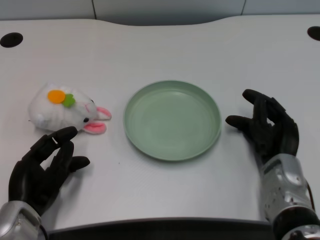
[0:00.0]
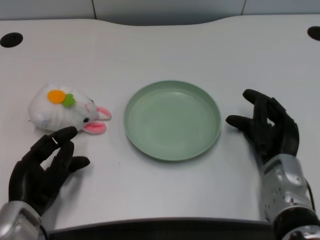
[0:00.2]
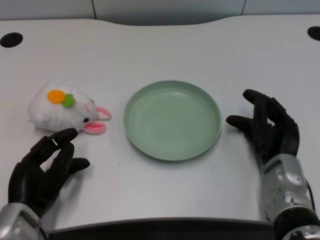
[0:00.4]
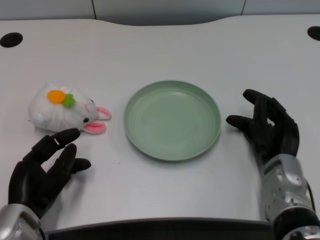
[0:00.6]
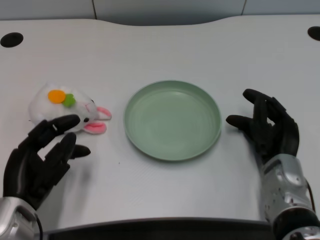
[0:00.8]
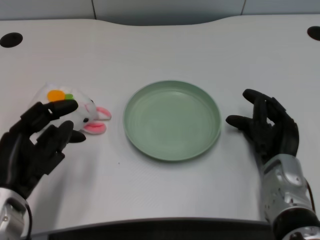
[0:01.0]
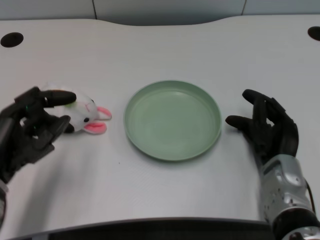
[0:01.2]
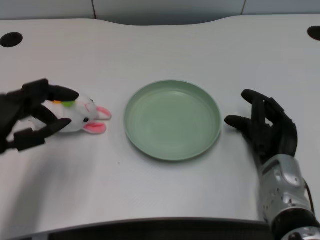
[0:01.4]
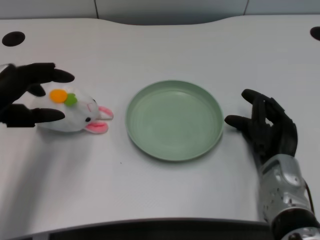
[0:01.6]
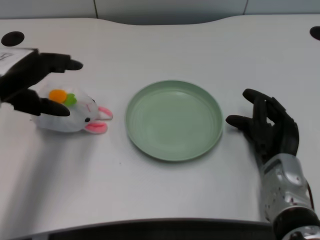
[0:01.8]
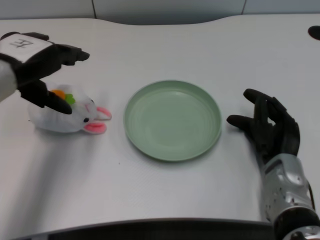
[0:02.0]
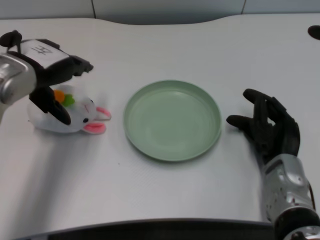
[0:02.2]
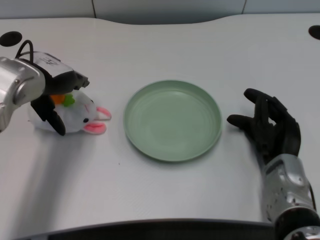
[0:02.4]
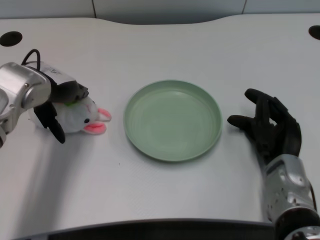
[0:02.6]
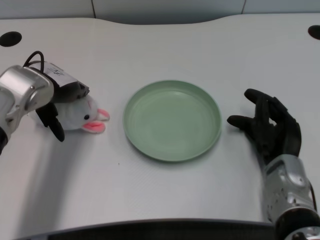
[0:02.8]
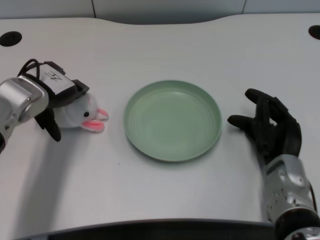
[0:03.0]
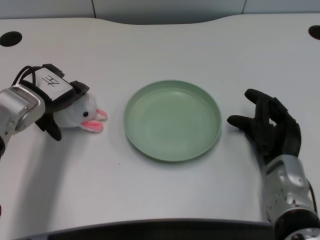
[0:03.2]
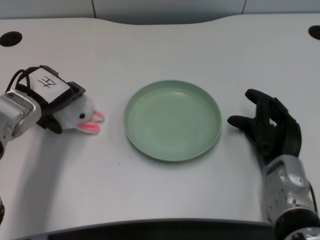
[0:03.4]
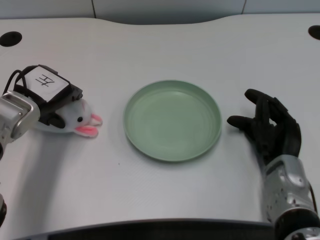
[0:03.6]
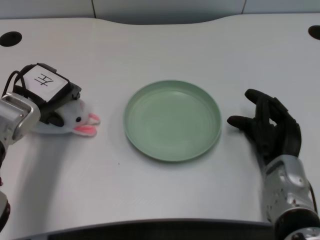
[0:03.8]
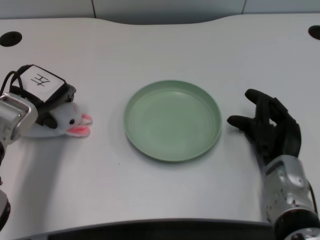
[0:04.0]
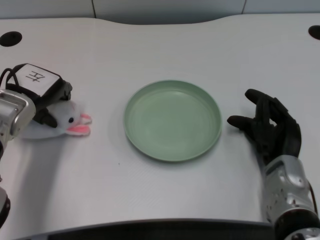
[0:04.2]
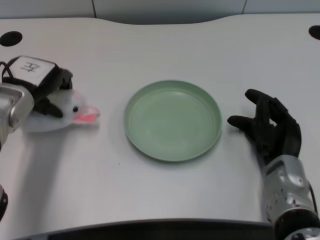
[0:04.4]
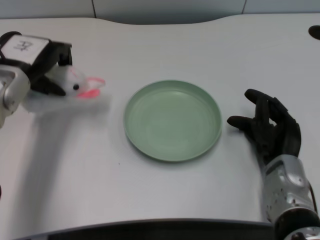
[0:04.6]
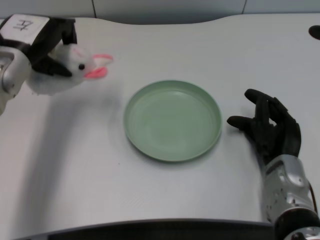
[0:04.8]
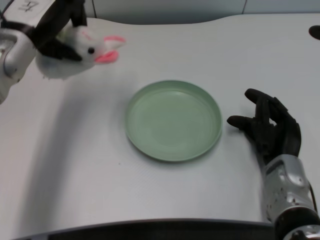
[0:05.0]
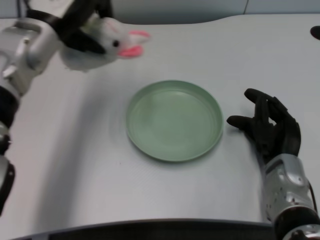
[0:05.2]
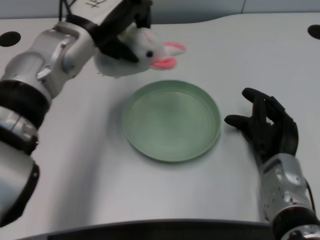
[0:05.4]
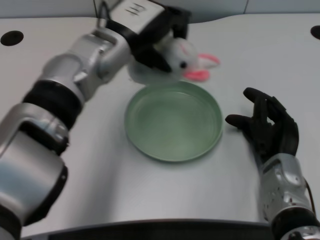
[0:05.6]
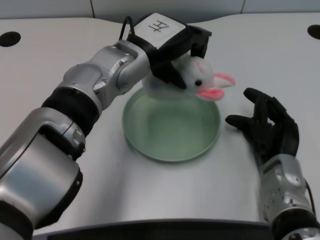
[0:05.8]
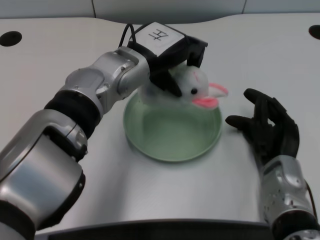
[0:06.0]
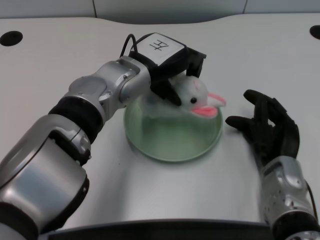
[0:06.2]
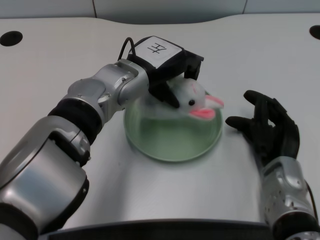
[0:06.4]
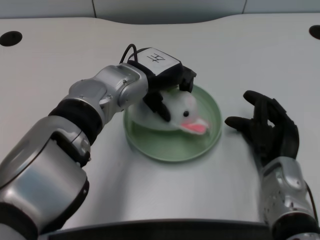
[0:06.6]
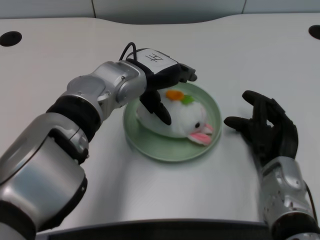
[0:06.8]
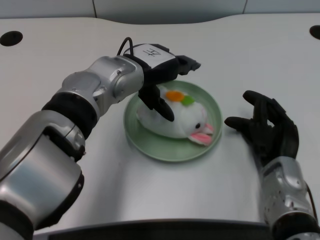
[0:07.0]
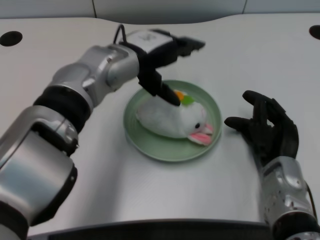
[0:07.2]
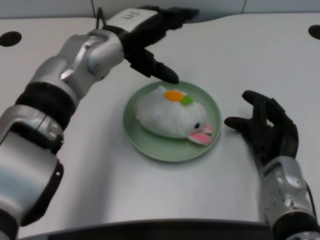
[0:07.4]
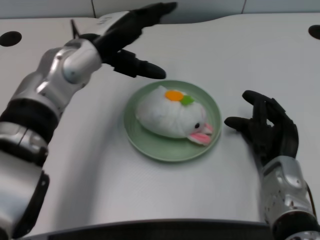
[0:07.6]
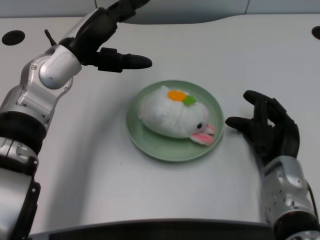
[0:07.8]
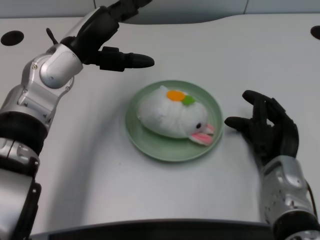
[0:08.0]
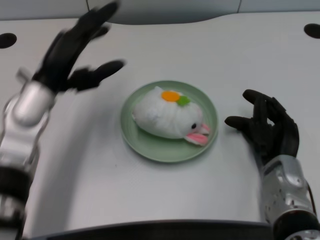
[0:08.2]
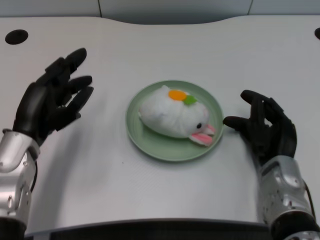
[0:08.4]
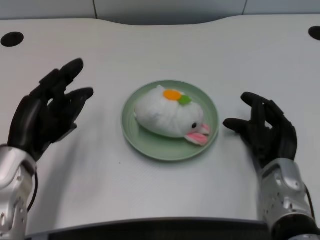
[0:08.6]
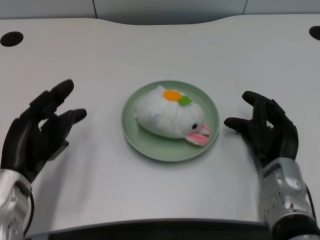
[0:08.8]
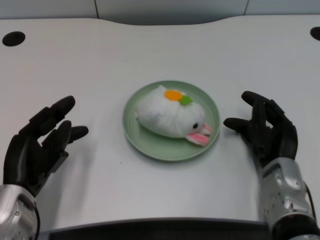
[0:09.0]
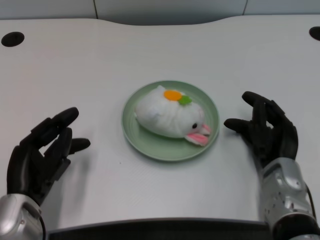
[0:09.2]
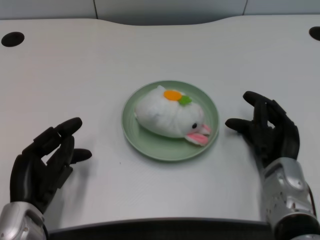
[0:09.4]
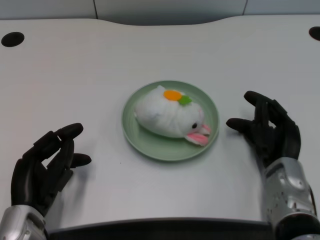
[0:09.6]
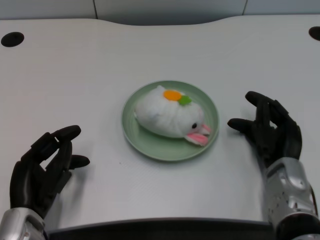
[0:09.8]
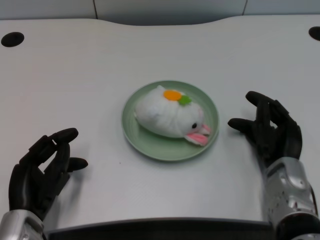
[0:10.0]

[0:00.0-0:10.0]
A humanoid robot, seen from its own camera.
Task of the whole recording: pick up the rabbit doll from the table and place it on the plate.
Step, 0:00.8 to 0:04.4: Grasp the rabbit doll with the left gripper.
Step, 0:04.6 to 0:07.0: Place the rabbit doll into the plate with the left gripper.
0:01.4 to 0:02.8: The left hand travels forward and to the right by about 15 cm.
0:02.8 to 0:04.2: The left hand shifts by about 5 cm.
0:04.2 to 0:05.8: The left hand goes approximately 20 cm to the right and upward.
0:07.2 to 0:08.6: The left hand travels to the left, backward and downward by some 20 cm.
0:08.6 to 0:10.0: The left hand is displaced downward and backward by roughly 10 cm.

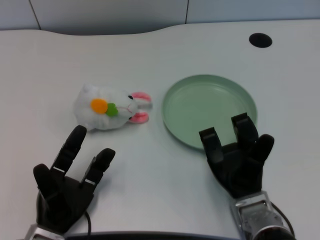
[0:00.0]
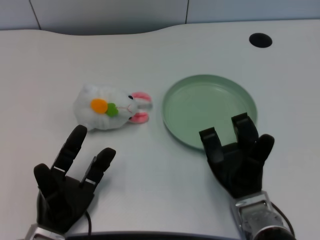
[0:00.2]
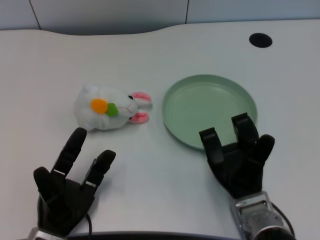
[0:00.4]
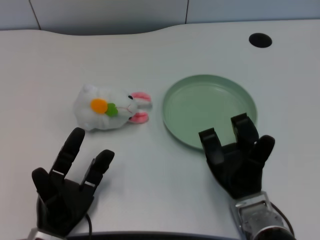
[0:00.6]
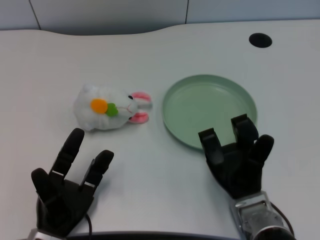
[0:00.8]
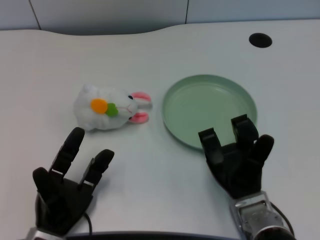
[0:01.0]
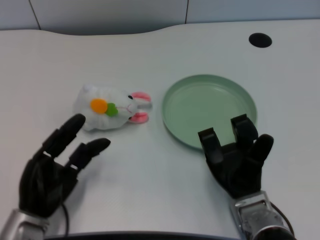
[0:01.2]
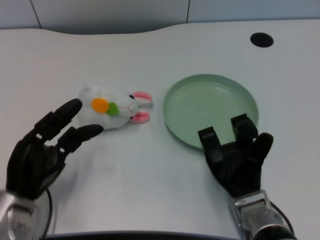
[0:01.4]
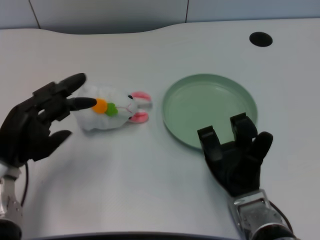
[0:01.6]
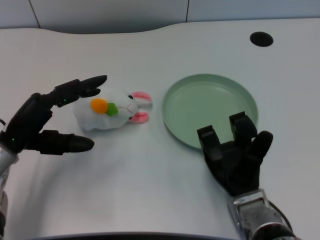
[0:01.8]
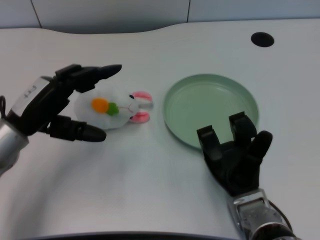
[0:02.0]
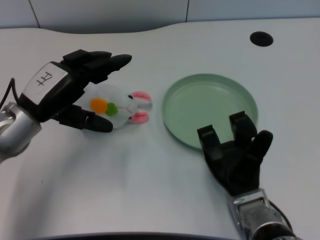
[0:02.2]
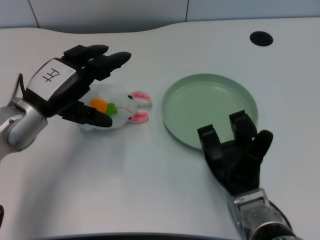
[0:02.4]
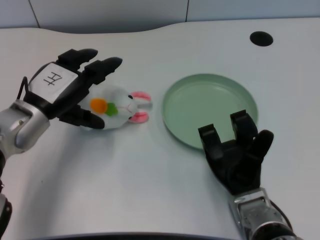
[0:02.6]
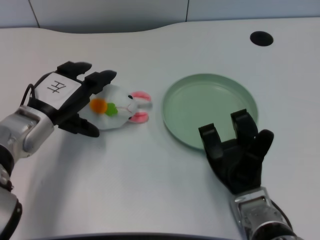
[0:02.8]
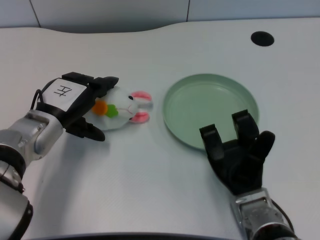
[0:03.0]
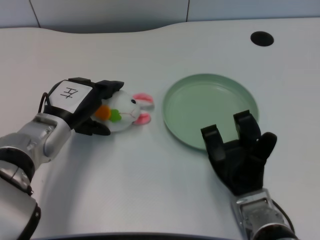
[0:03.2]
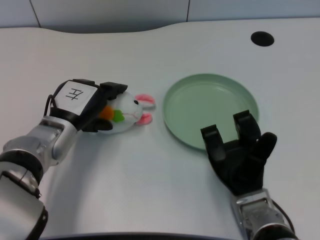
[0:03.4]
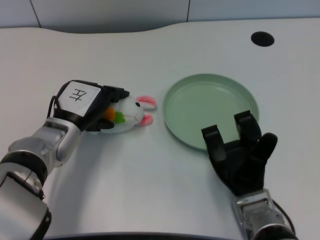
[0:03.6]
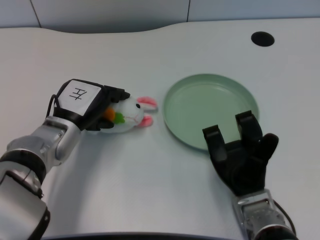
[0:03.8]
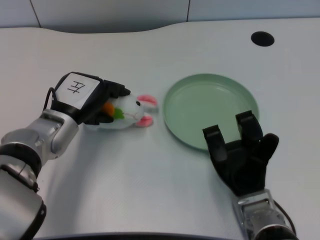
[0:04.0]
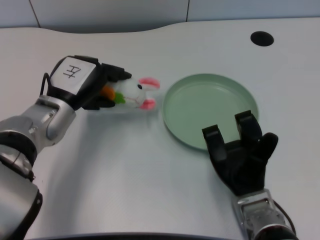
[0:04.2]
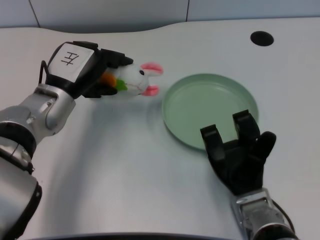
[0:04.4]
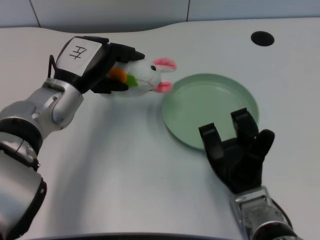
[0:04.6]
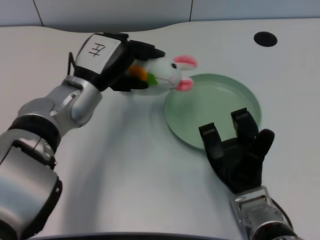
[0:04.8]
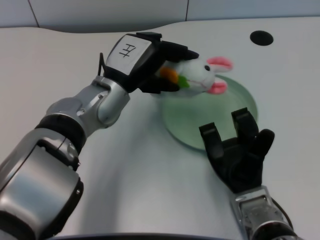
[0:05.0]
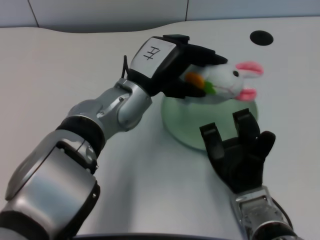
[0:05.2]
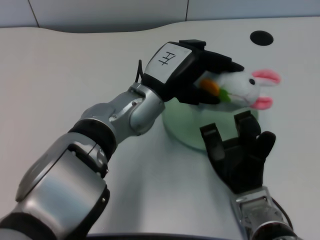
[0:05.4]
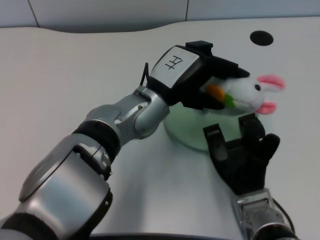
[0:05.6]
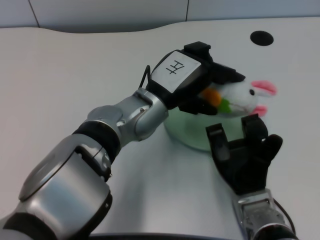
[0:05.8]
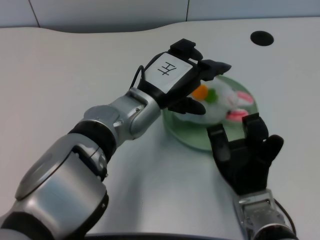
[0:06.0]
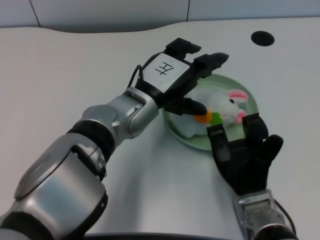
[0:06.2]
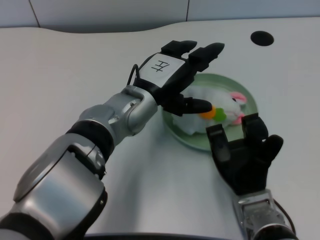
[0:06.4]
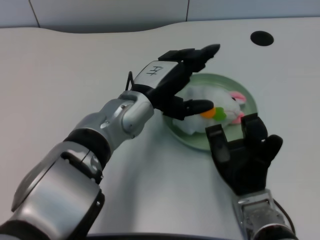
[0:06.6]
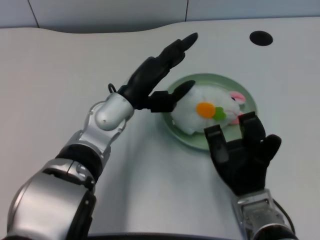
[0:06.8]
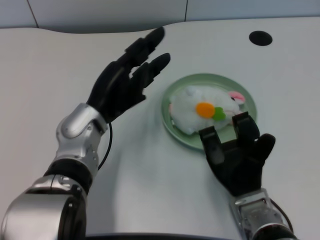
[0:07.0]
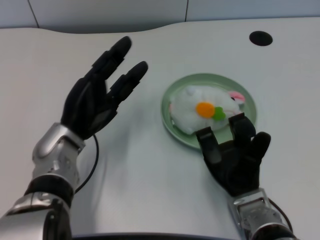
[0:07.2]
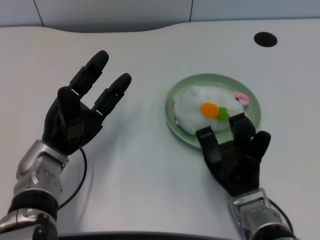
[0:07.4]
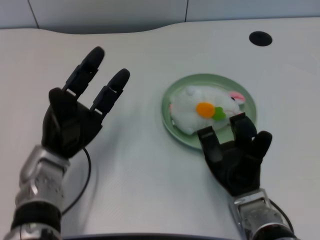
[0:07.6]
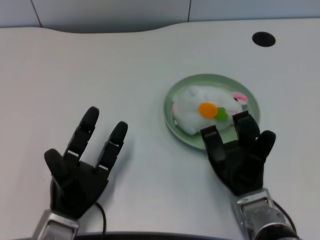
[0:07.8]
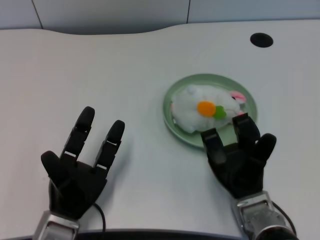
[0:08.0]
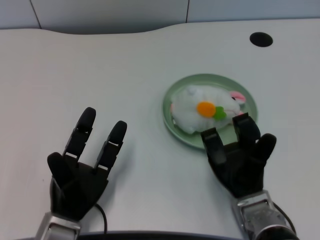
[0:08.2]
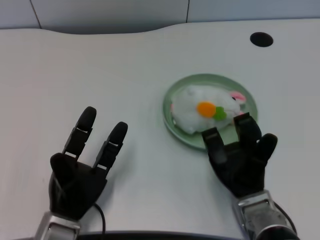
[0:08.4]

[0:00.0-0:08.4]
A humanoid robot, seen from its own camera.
Task of the whole recording: pick up the rabbit doll from the table and place it on the plate.
Step, 0:01.0 to 0:04.0: Grasp the rabbit doll with the left gripper.
Step, 0:04.2 to 0:06.0: Place the rabbit doll into the plate with the left gripper.
0:01.4 to 0:02.8: The left hand travels forward and upward by roughly 10 cm.
0:02.8 to 0:04.2: The hands move only a little.
0:04.2 to 0:05.6: The left hand heads to the right, covering some 15 cm.
0:05.6 to 0:07.0: The left hand moves to the left, some 10 cm.
0:07.0 to 0:08.4: The left hand heads backward and downward, covering roughly 15 cm.

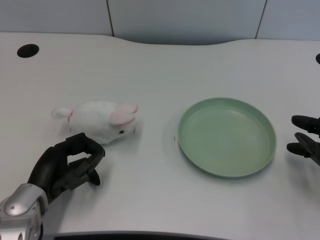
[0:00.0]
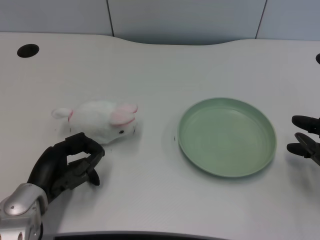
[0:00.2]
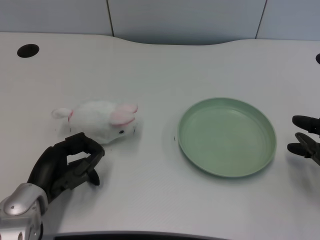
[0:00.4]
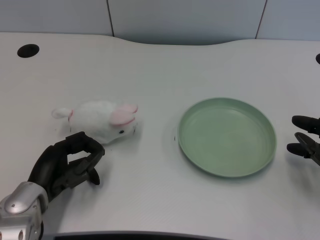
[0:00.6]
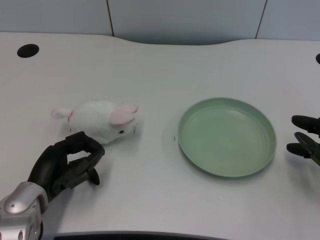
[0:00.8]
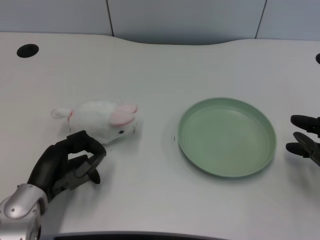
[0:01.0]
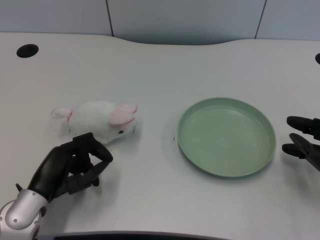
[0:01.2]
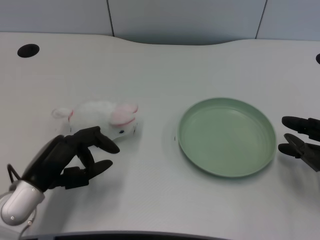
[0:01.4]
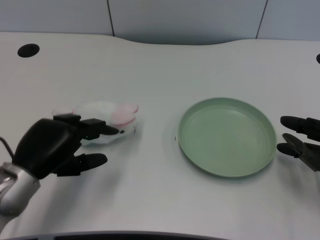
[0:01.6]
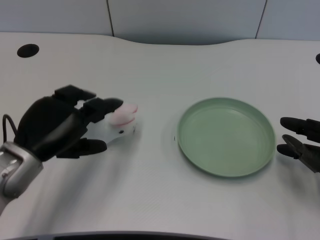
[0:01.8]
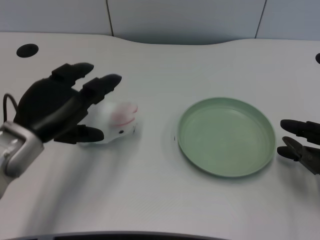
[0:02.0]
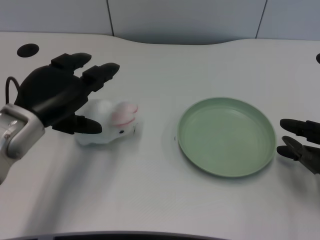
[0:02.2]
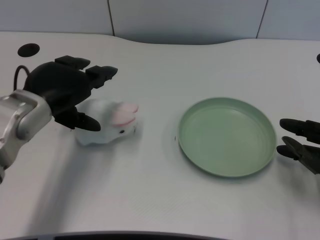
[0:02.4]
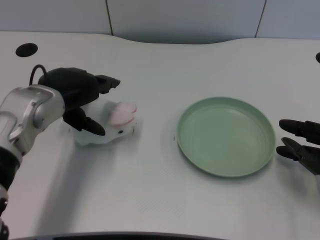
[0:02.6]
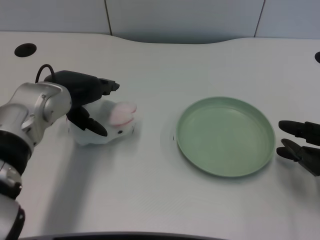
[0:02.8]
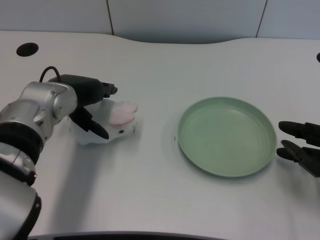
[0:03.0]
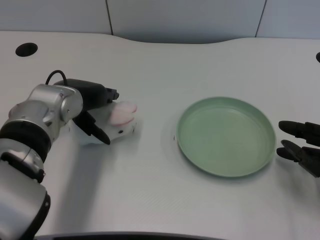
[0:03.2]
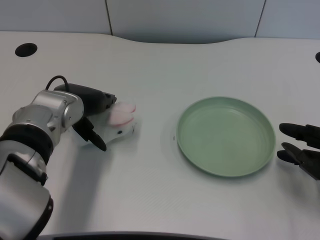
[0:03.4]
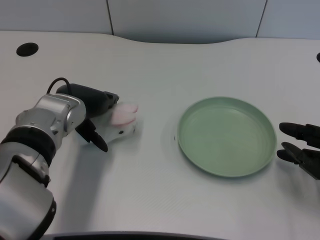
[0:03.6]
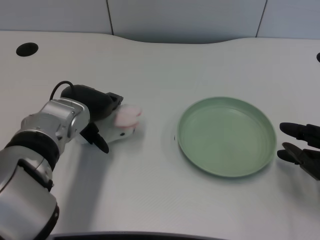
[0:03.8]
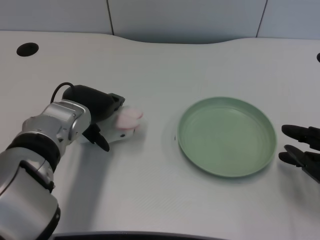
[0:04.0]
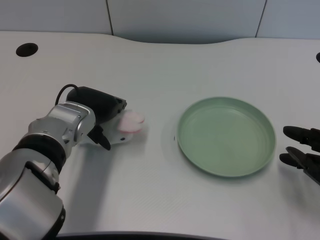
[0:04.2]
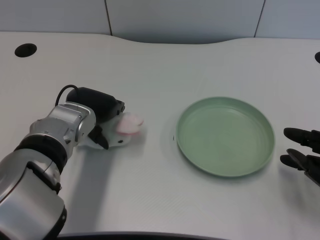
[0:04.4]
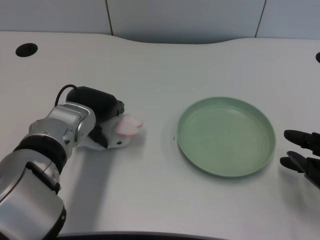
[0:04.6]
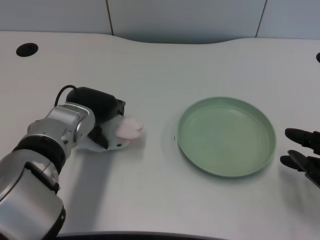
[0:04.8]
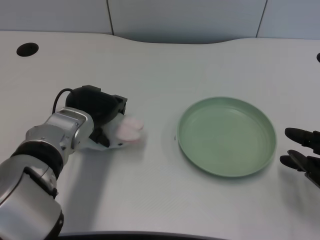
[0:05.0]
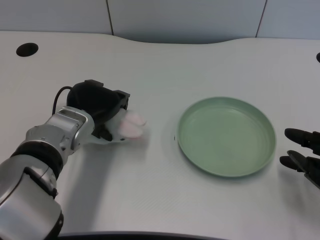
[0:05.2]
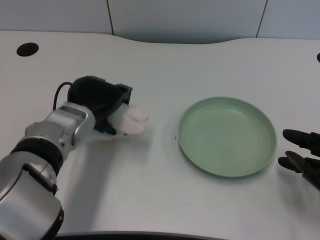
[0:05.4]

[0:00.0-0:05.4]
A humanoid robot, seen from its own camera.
Task of the whole recording: pick up the rabbit doll from the table and place it on the plate.
Step, 0:01.0 to 0:05.4: Grasp the rabbit doll with the left gripper.
0:01.4 to 0:02.8: The left hand travels forward and upward by approximately 15 cm.
0:02.8 to 0:05.4: The hands make only small movements.
